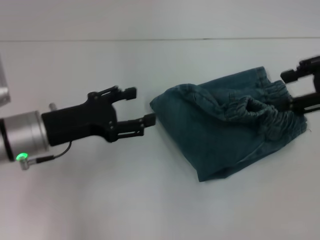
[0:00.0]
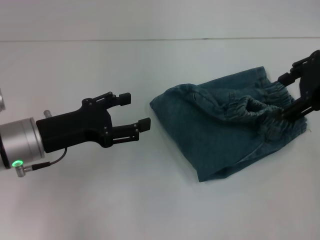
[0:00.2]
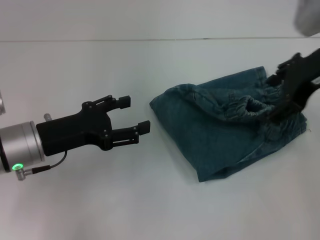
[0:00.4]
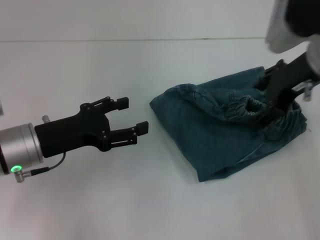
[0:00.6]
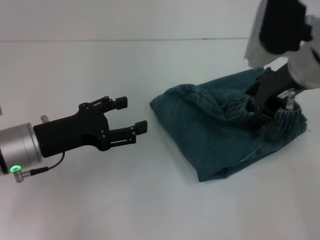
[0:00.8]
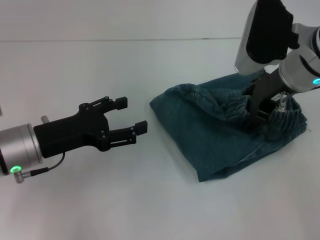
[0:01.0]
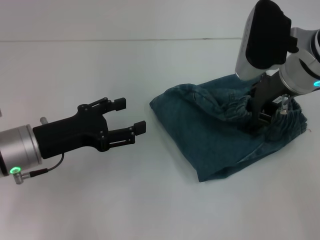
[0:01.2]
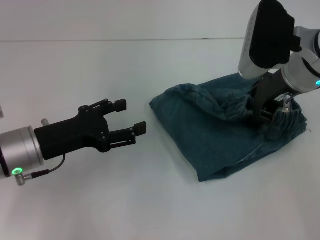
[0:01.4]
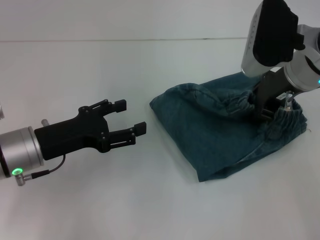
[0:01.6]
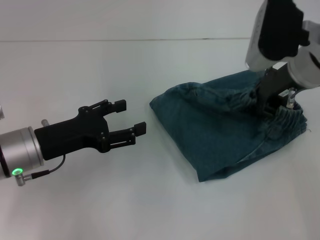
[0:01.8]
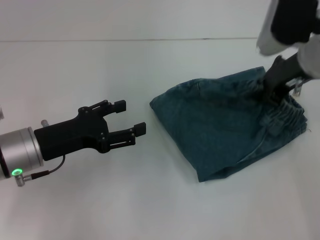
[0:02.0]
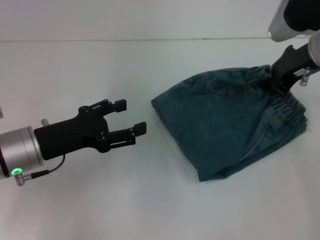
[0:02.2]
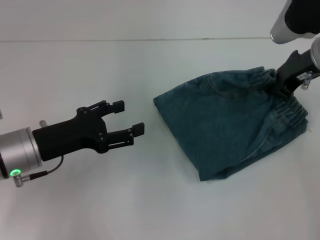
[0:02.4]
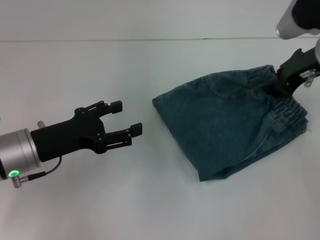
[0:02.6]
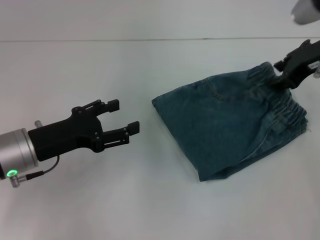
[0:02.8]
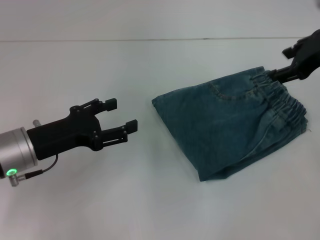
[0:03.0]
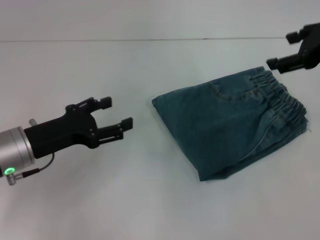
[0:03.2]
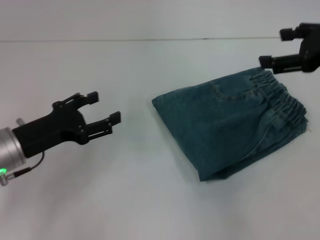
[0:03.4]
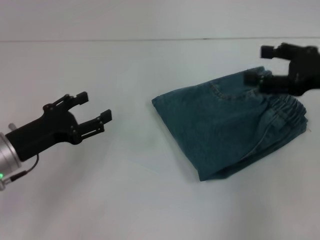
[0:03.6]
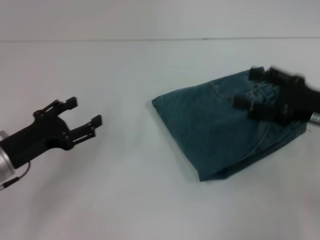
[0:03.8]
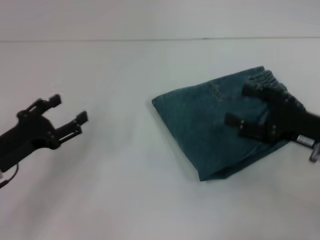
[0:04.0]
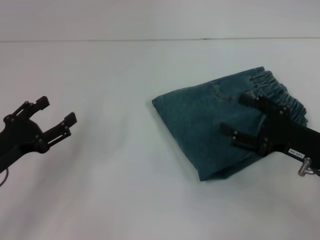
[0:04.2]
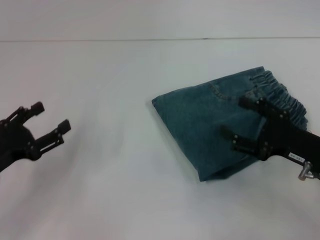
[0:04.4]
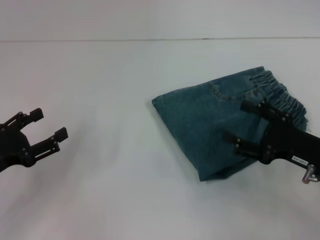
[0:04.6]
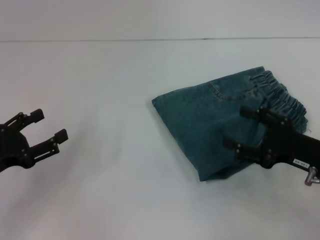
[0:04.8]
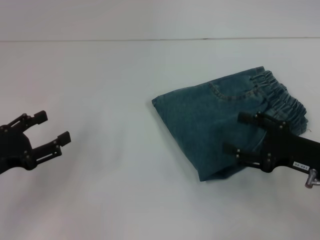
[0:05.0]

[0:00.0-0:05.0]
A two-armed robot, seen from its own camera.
0:00.0 to 0:01.6: The right gripper moves to the left, downward and forward, approximately 15 cm.
0:01.6 to 0:03.4: The right gripper heads to the right, covering roughly 10 cm, and closes, then reopens.
0:03.4 to 0:05.0: The left gripper goes roughly 5 cm to the left; the right gripper goes some 20 cm downward and backward.
